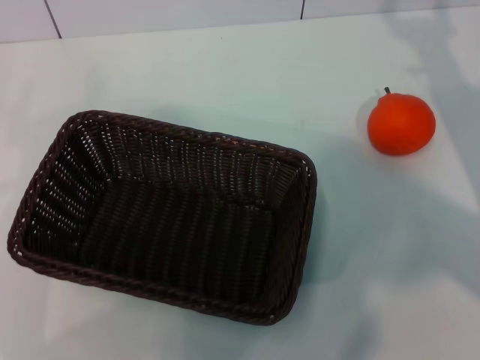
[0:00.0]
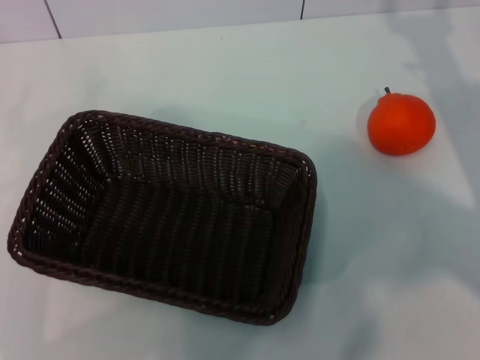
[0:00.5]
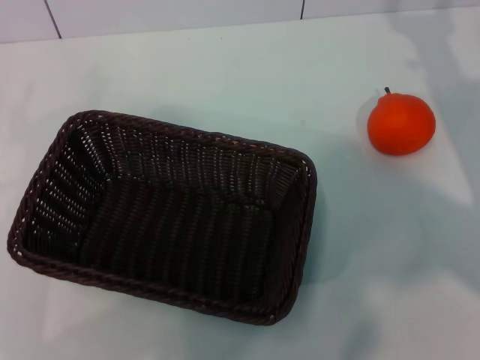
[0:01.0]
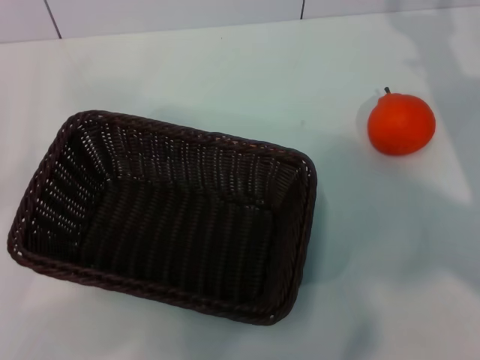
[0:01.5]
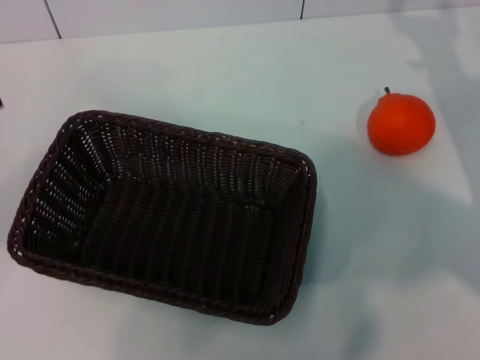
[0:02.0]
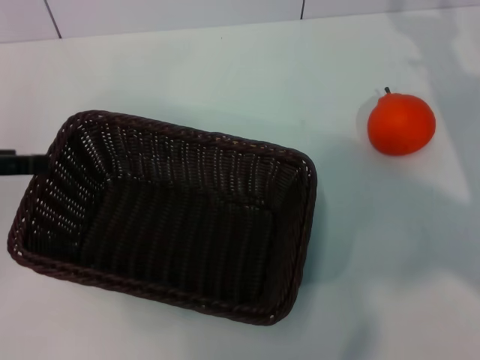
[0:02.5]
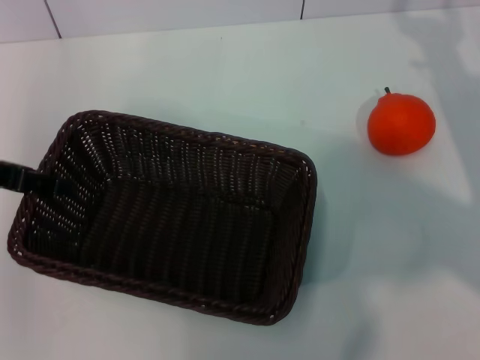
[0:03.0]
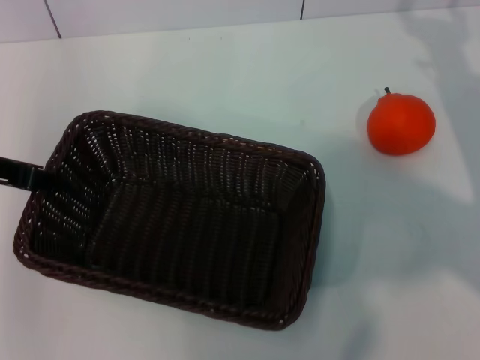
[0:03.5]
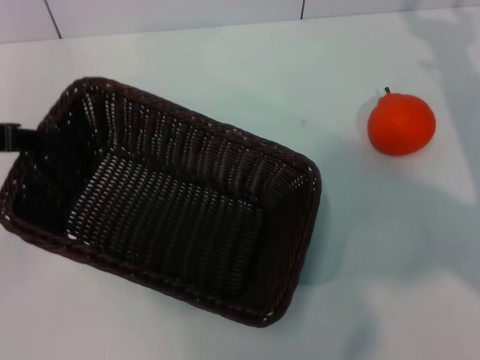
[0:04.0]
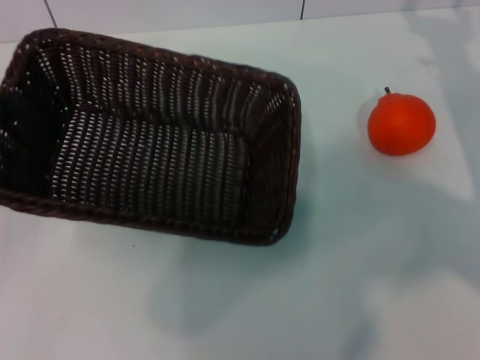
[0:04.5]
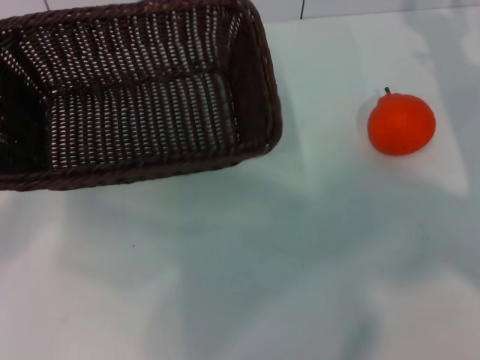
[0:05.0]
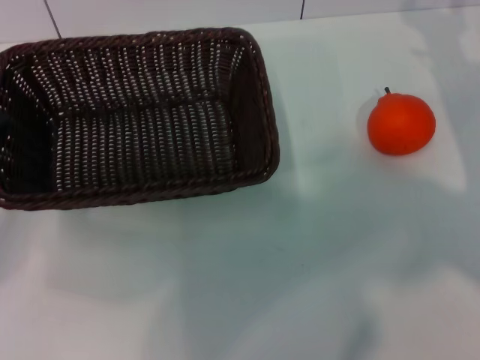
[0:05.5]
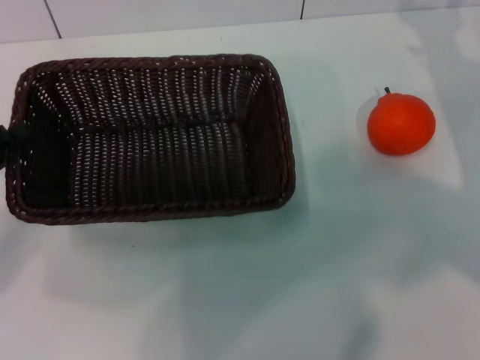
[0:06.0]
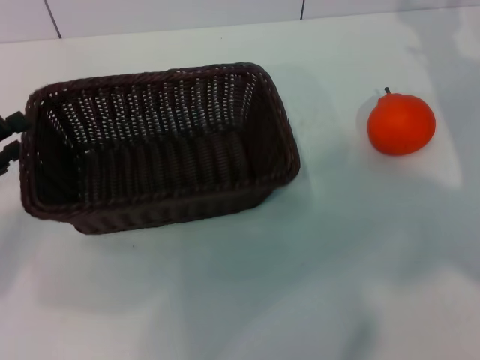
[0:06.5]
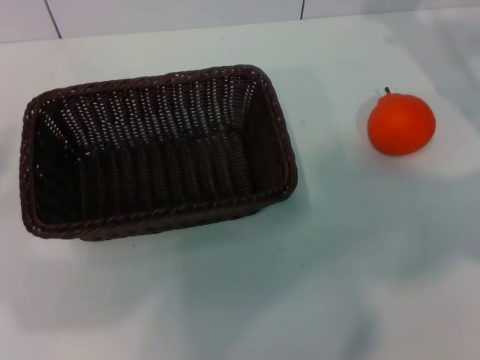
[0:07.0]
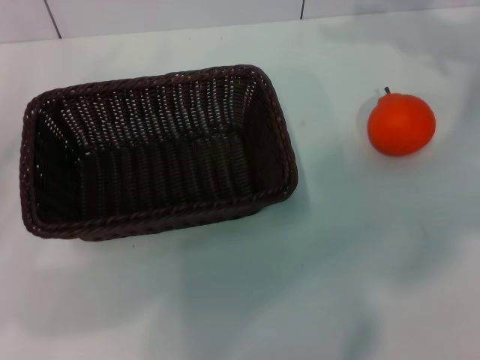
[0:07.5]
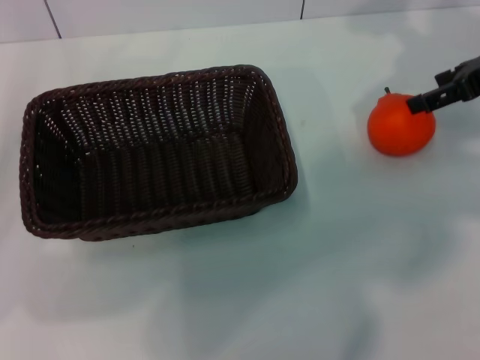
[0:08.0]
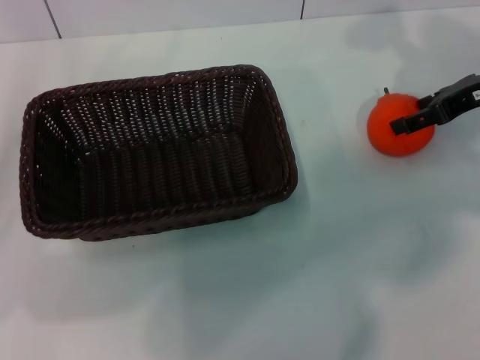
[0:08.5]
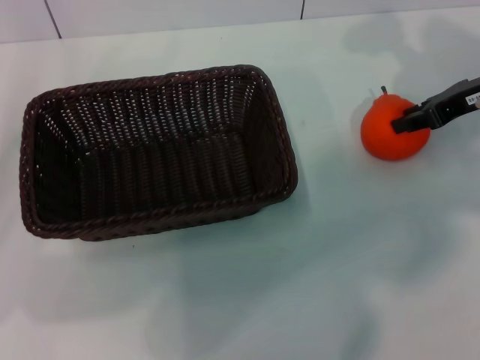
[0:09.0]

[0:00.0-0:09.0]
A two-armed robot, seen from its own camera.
Task of the whole recording: the left gripper pick up the black basket and place it horizontally in the middle of the table, the right gripper pick up the orange and place it into the black basket.
Step, 0:00.0 to 0:04.0: Pick up the dark basket with the left gripper.
Step, 0:04.5 to 0:06.5: Place the dark basket in the center of view with the left gripper.
0:00.0 to 0:02.0: The left gripper moves upward, about 10 cm.
0:02.0 to 0:04.5: The left gripper reaches about 10 cm to the right, then returns, and closes its fingers.
0:04.5 to 0:07.0: The left gripper travels downward by approximately 10 cm, and opens up, while the right gripper ends up roughly 5 cm from where it was.
0:07.0 to 0:09.0: The right gripper goes upward and returns, some 10 cm each way, and closes its fingers.

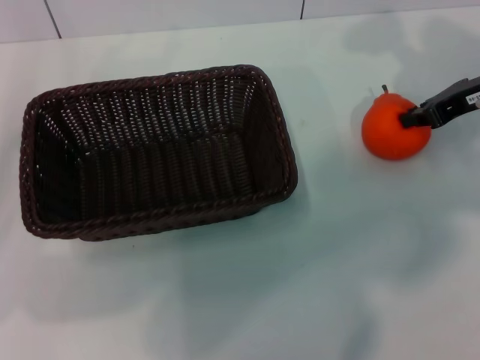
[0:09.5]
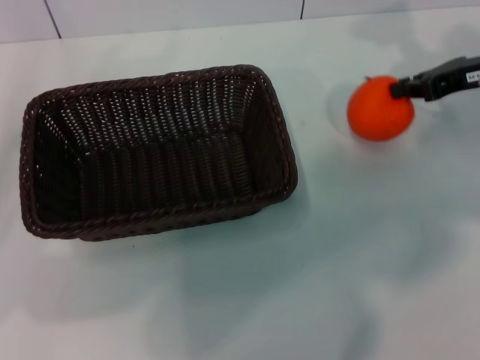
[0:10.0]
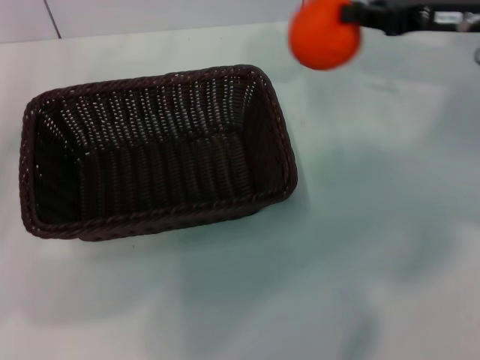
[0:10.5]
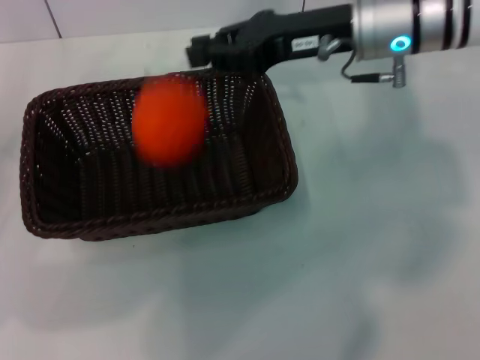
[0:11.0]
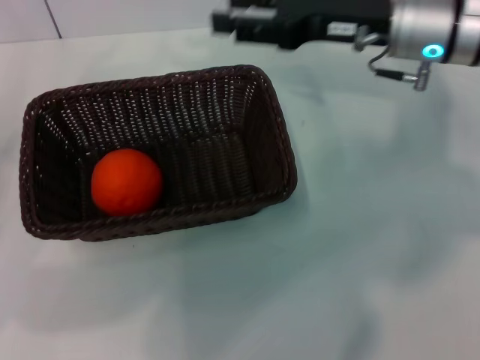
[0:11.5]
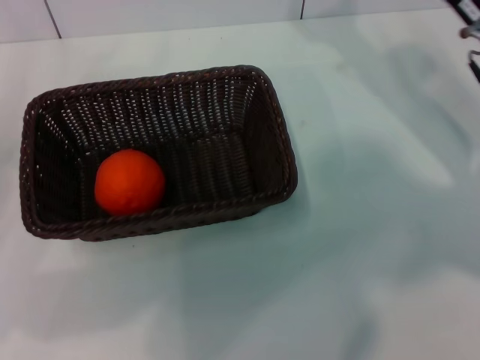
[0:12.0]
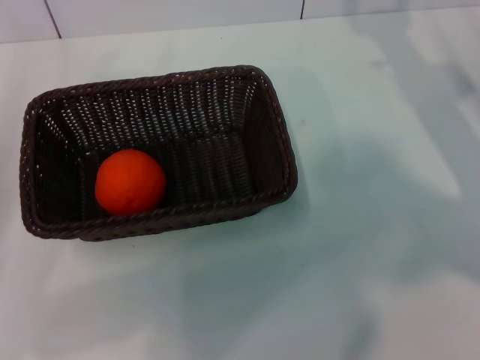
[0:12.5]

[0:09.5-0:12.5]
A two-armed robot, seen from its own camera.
Task of the whole recording: the left gripper pick up the black basket and place it horizontally in the middle of the table, the right gripper pick up the orange and place it into the black basket.
Step, 0:10.5 to 0:11.0: Place the orange into the dark basket with the right gripper.
0:09.5 to 0:11.0: The right gripper shifts some 15 cm to the left.
0:11.0 to 0:12.5: The right gripper goes some 15 cm to the right and downward, and opens its fingers.

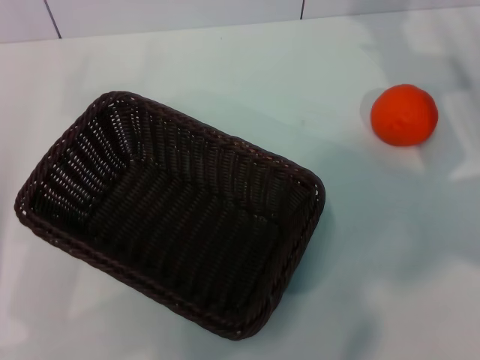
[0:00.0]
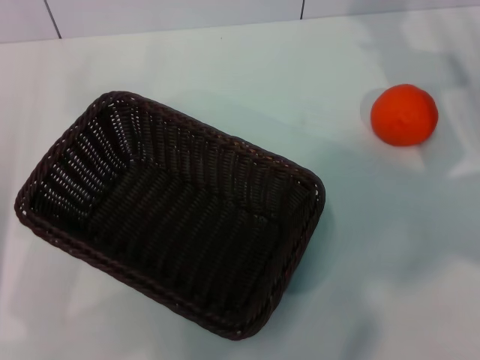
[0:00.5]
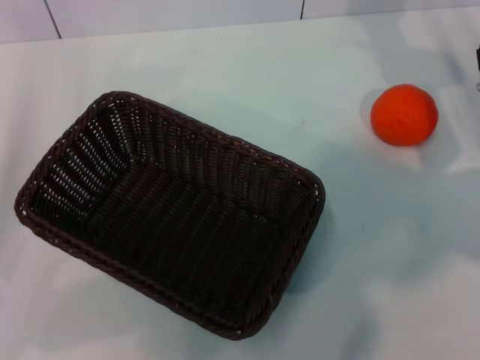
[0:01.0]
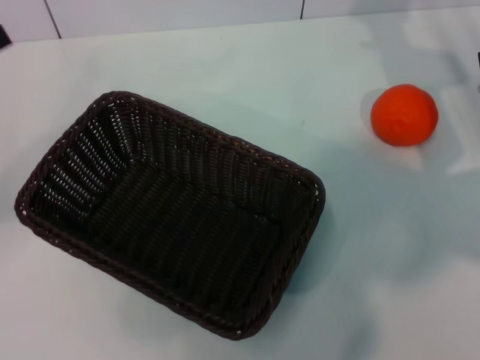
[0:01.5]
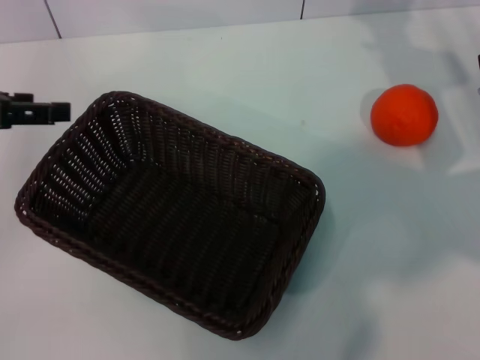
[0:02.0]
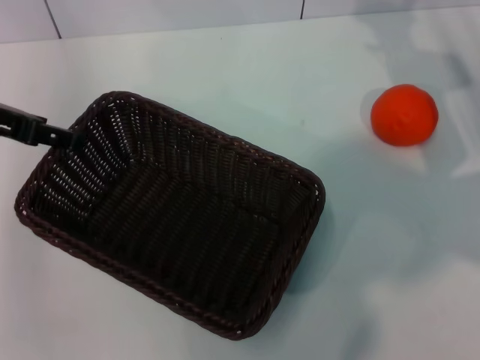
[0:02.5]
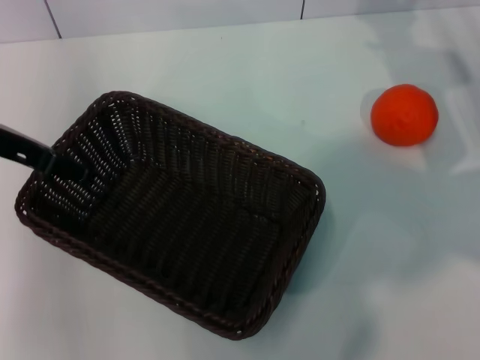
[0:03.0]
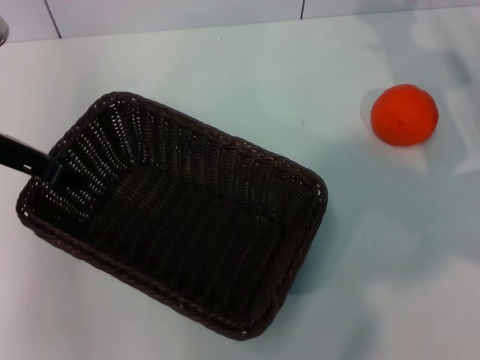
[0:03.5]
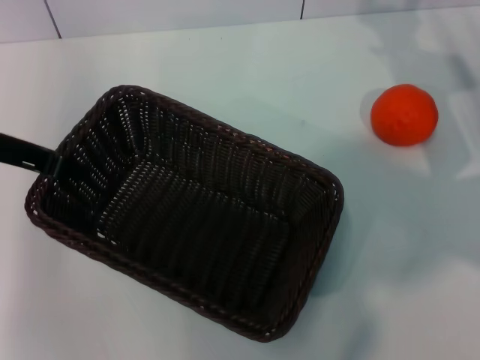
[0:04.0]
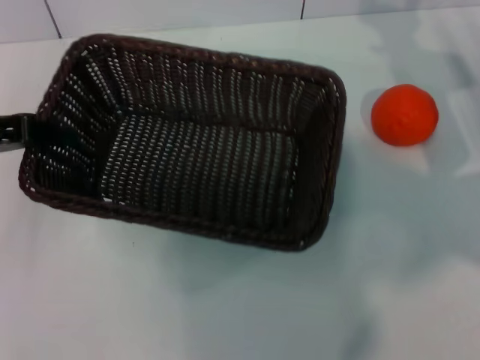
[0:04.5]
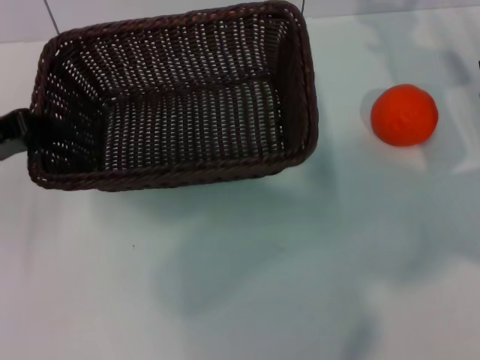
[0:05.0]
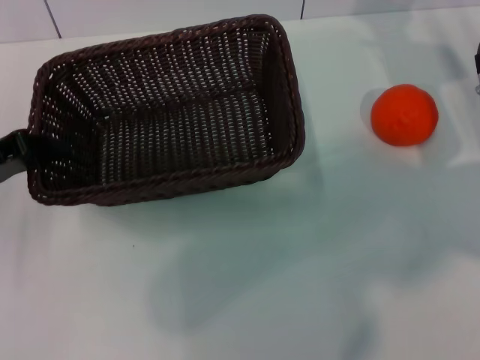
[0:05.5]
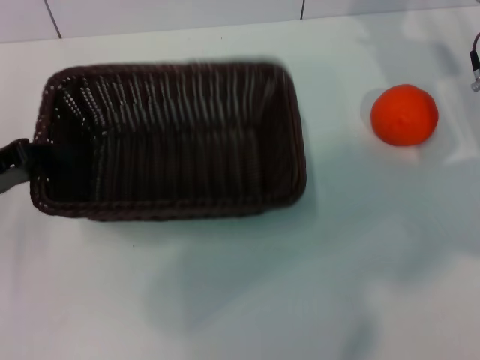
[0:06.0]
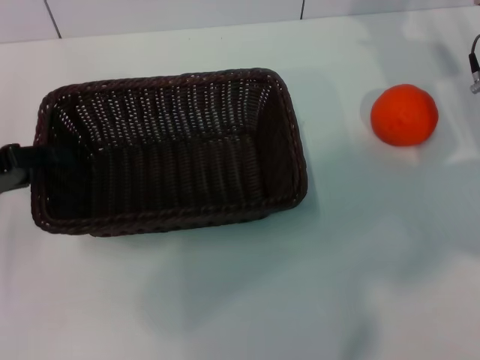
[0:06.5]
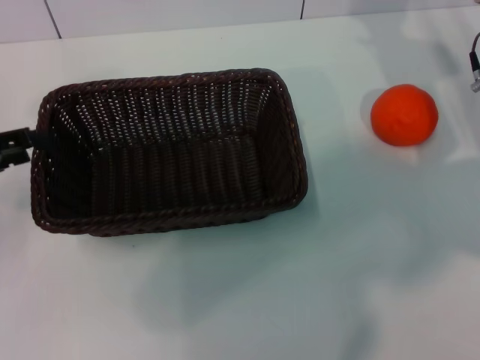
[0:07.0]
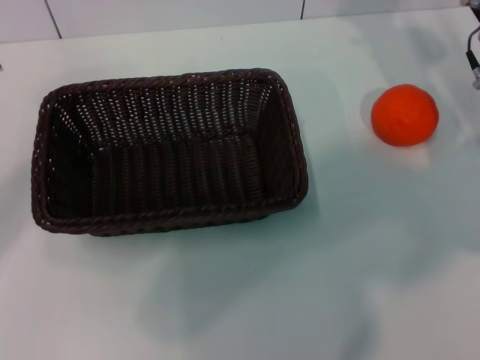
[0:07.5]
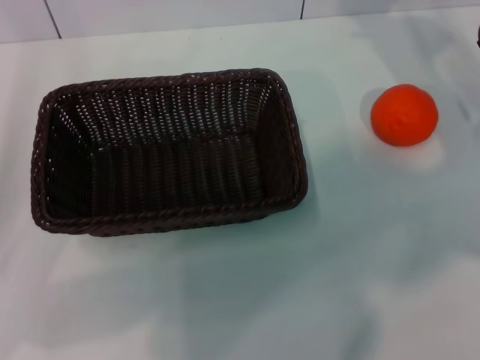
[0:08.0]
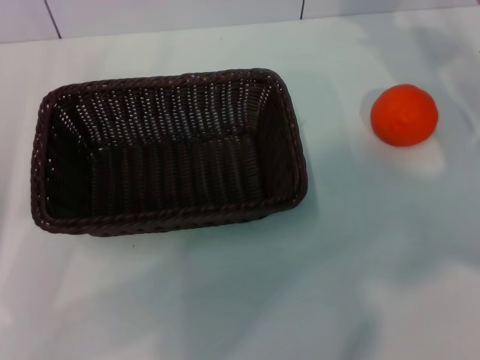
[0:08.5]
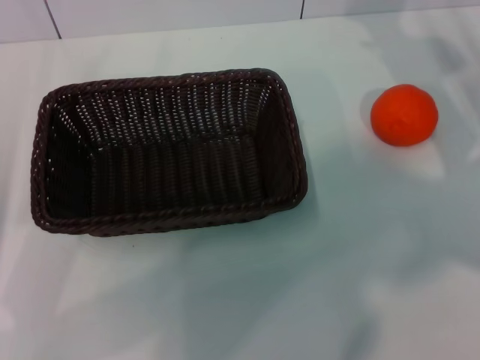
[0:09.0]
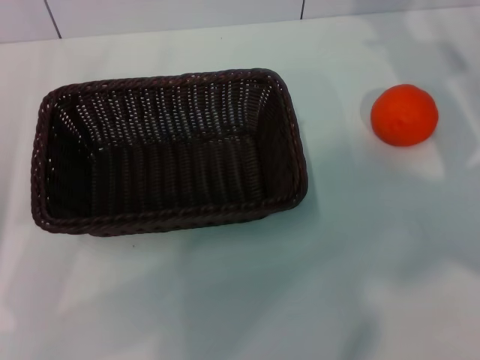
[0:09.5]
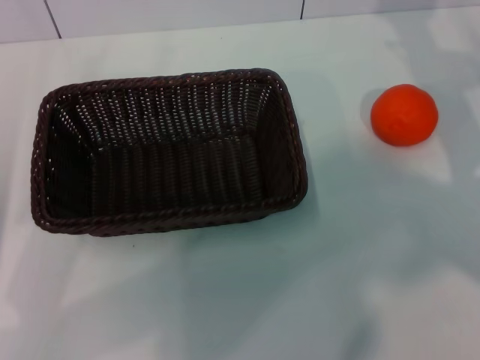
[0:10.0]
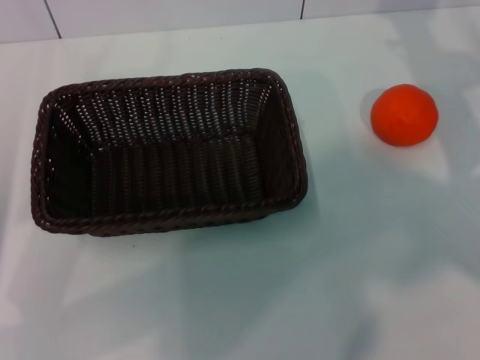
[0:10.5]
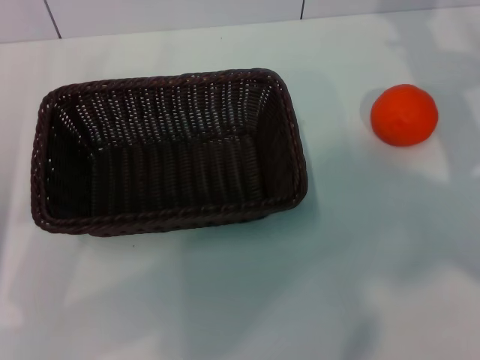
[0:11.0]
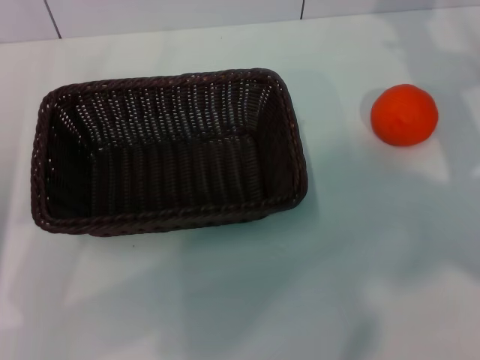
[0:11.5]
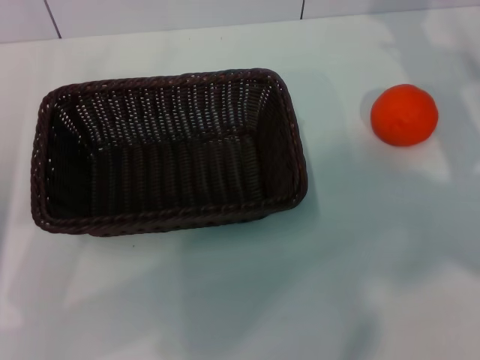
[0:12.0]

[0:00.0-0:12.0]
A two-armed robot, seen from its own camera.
Task of the whole recording: the left gripper pick up the black basket and place it horizontally in the middle of the table, the right gripper pick up the orange and place it into the black basket.
Step, 0:00.0 to 0:04.0: Pick up the dark basket with the left gripper.
Step, 0:05.0 to 0:07.0: Place the dark basket in the center of view with the left gripper.
0:00.0 to 0:02.0: The left gripper is displaced upward and forward by about 15 cm.
0:02.0 to 0:04.0: The left gripper shifts approximately 5 cm to the right, and closes its fingers.
0:04.0 to 0:06.0: The left gripper travels downward and to the left by roughly 10 cm.
0:06.0 to 0:08.0: The left gripper travels backward by approximately 5 cm, and opens.
0:10.0 to 0:12.0: Both grippers stay about where they are.

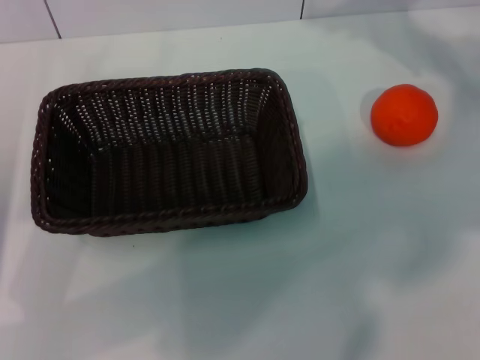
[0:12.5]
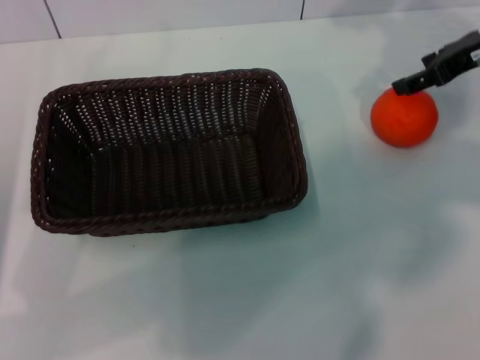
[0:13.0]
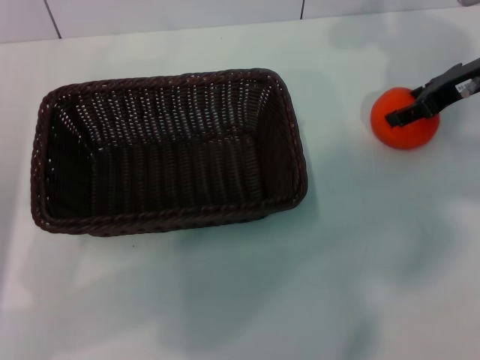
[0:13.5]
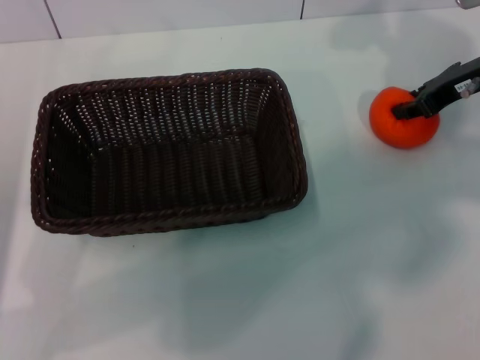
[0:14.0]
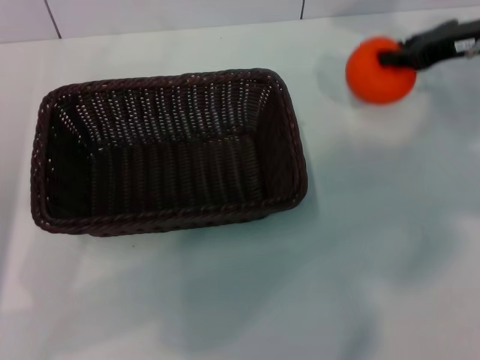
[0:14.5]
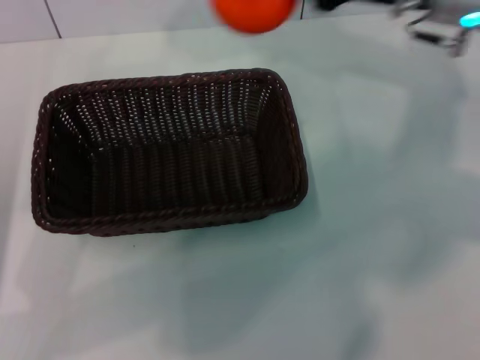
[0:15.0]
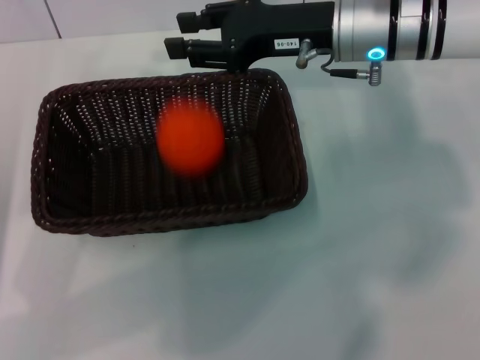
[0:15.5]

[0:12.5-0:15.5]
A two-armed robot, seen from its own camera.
Task of the whole recording: the left gripper pick up the black basket and place it horizontally in the middle of the table, the right gripper pick up the orange and place it into the black basket.
0:12.5 to 0:14.0: The right gripper closes.
0:14.0 to 0:15.5: The right gripper goes some 15 cm to the left.
